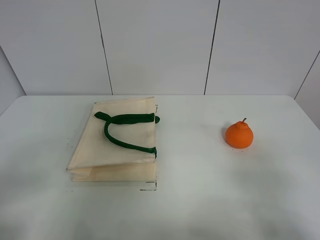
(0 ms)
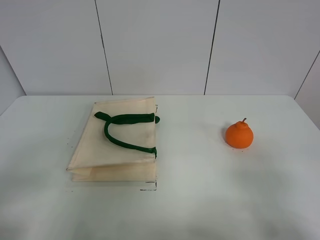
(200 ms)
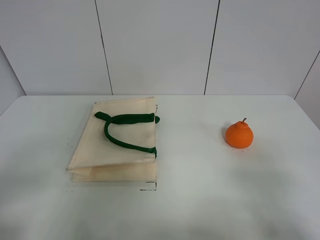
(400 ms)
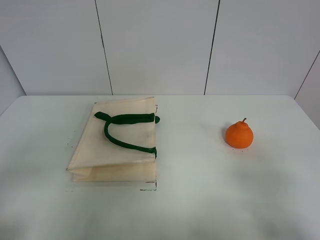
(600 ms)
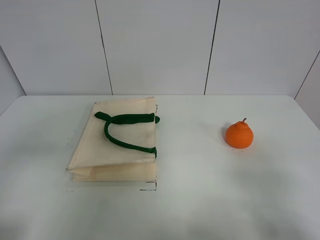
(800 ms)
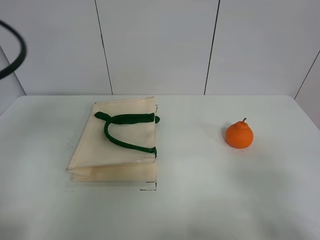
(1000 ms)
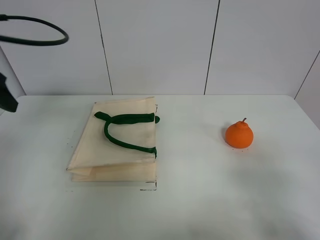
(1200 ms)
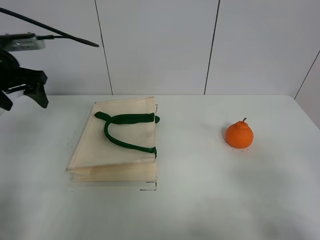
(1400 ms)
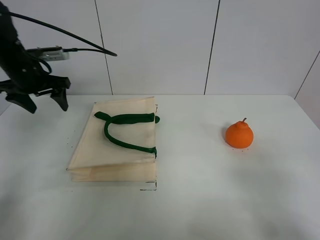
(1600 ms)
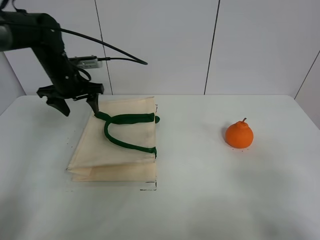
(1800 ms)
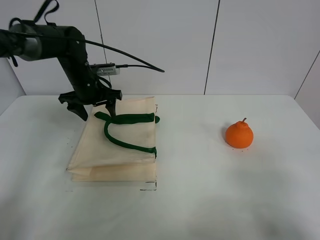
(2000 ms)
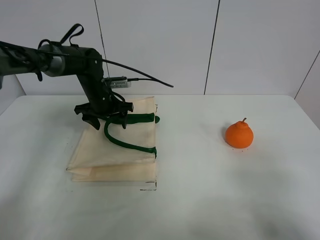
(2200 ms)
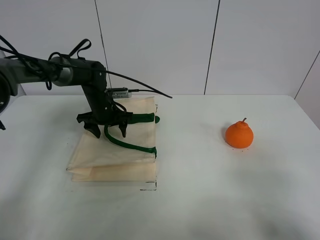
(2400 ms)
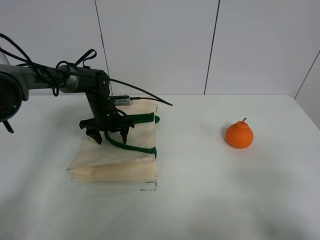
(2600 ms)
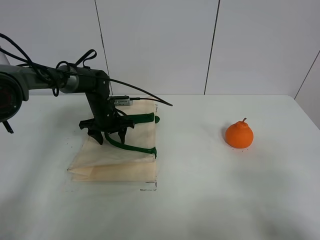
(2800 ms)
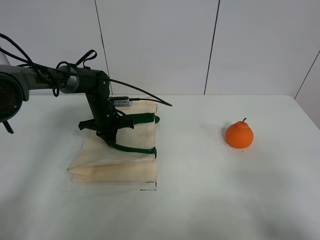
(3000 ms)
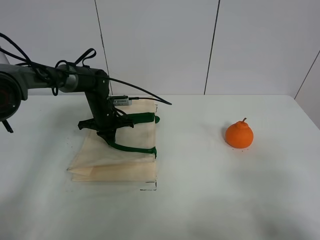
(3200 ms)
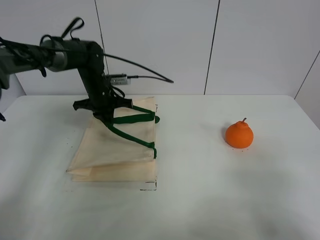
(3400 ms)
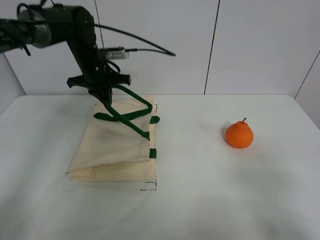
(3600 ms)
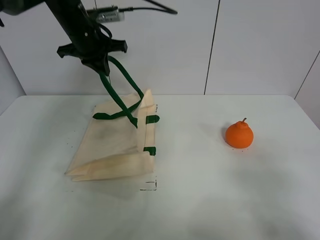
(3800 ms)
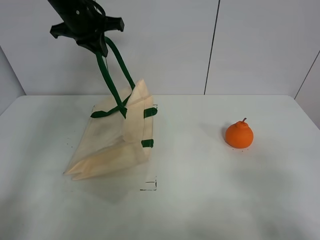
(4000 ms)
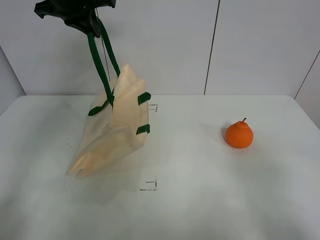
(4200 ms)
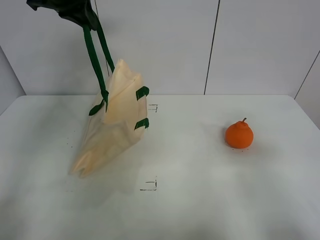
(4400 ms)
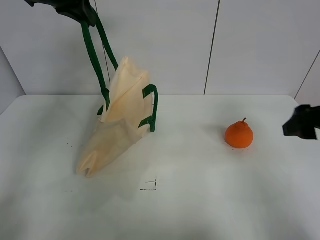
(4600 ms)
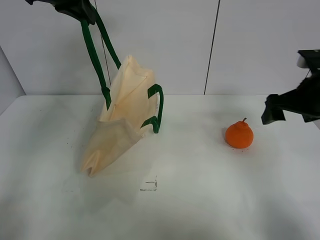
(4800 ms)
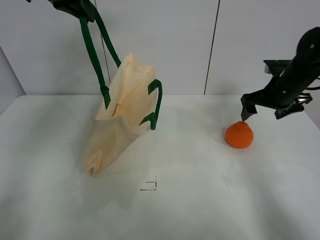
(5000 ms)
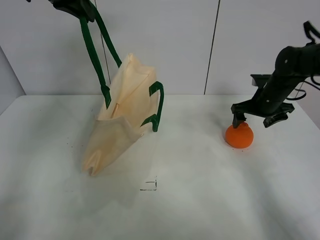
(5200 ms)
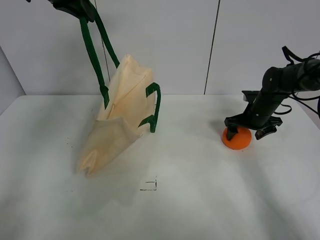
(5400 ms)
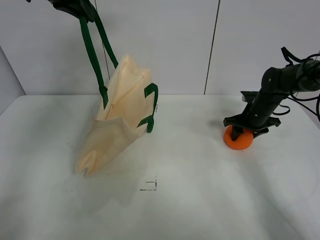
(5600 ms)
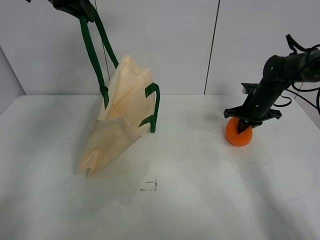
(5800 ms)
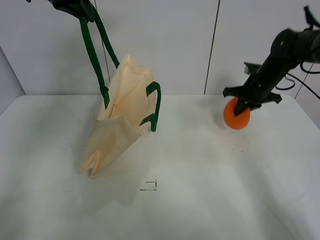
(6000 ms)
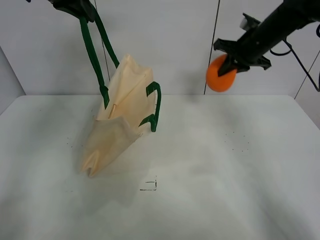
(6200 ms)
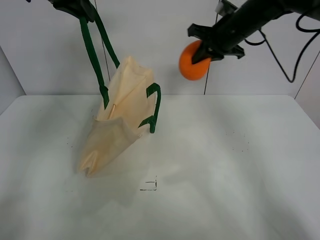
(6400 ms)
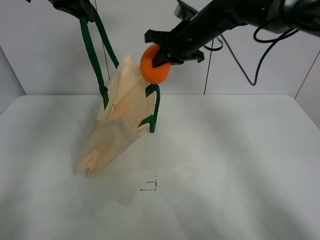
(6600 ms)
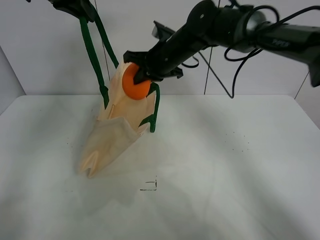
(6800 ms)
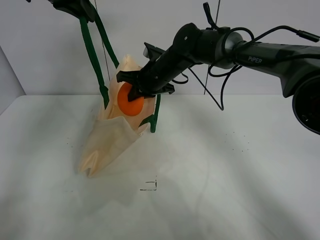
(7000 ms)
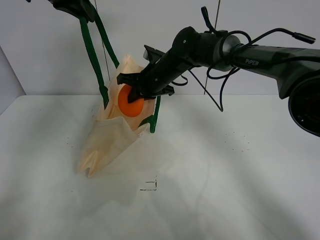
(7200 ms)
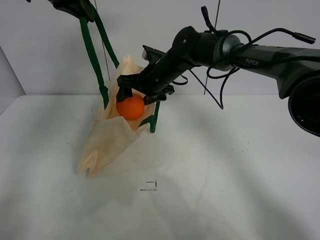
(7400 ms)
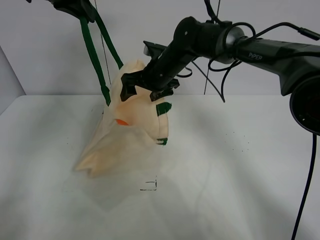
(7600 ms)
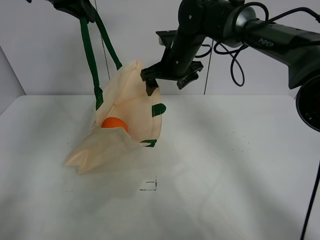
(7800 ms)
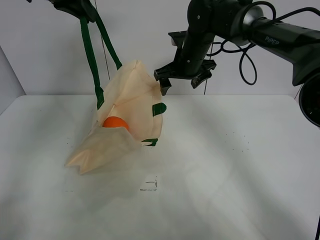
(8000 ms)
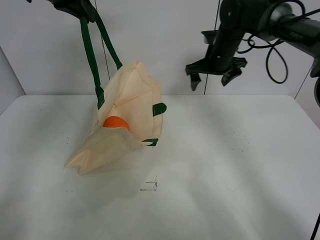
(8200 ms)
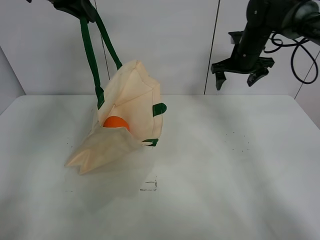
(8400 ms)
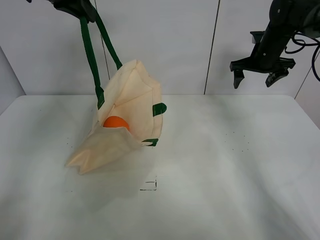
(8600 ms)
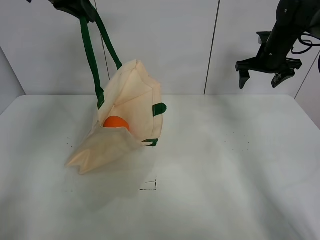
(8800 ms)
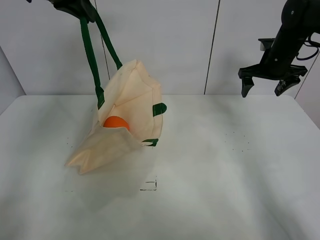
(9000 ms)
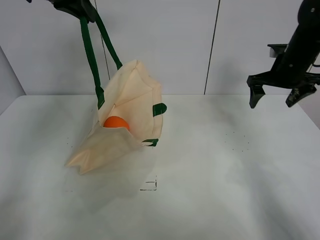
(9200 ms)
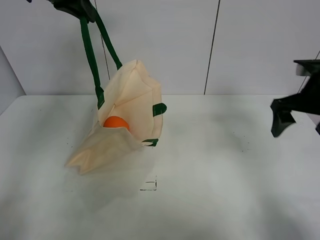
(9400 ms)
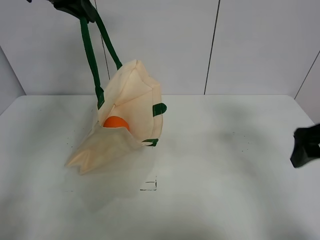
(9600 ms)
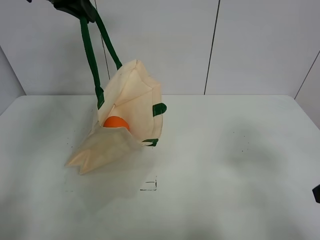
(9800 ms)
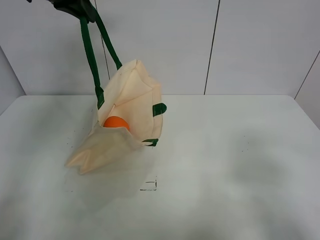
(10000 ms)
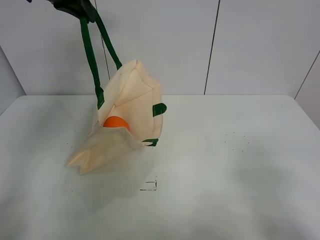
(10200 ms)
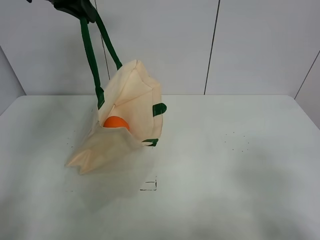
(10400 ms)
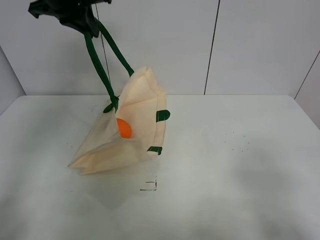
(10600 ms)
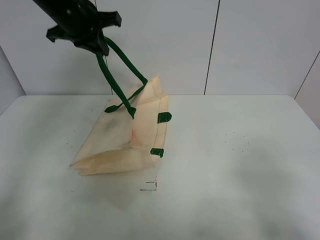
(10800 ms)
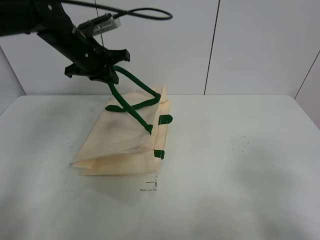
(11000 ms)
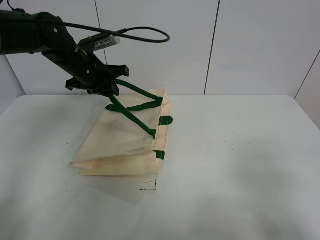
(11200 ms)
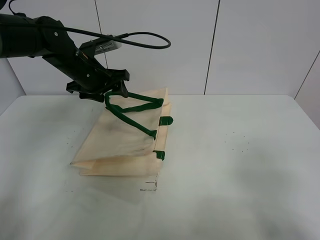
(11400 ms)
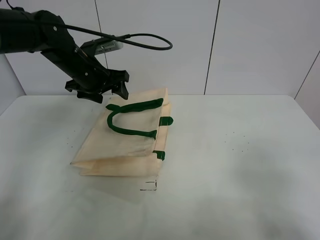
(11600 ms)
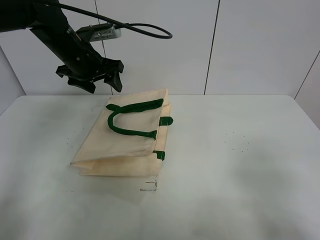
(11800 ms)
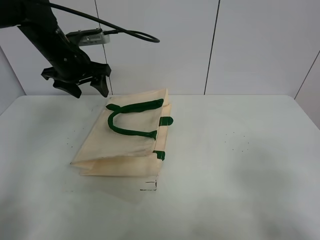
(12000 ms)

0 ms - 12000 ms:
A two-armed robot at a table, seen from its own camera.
Task of the whole recording: open the white linen bag and put the orange in the bag.
Step, 0 ms - 4000 ms: Lift the handbag with left gripper.
Step, 4200 ms - 5600 ms: Grasp the orange with right gripper.
Step, 5800 ms - 7600 ms: Place the orange in the handbag with right gripper.
Step, 7800 ms - 11600 ms: Put down the handbag with left gripper.
0 ms - 1600 ms: The left gripper is displaced forward by about 40 cm.
1600 ms - 3000 ms: The left gripper goes roughly 20 cm downward and to the right, and closes.
3000 ms - 4400 ms: The right gripper moves forward, approximately 10 cm; the left gripper heads upward, covering about 35 cm.
4400 ms - 6000 ms: The right gripper goes about 35 cm forward, and closes its fingers.
6000 ms - 7600 ms: The right gripper is displaced to the left by approximately 25 cm, and opens up.
7600 ms - 9000 ms: The right gripper shifts approximately 25 cm to the right.
9000 ms - 10400 ms: The right gripper travels backward by approximately 40 cm.
10400 ms - 12000 ms: The left gripper goes approximately 15 cm downward, and opens its fingers.

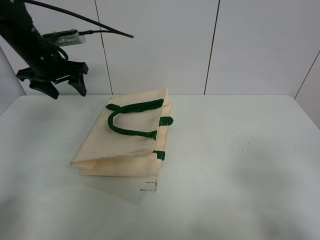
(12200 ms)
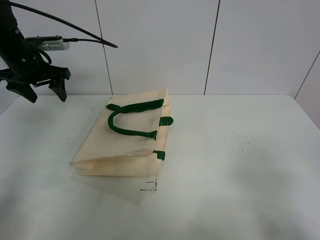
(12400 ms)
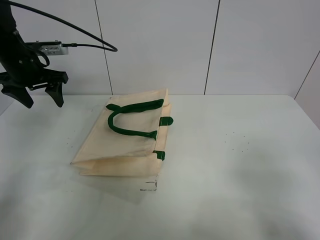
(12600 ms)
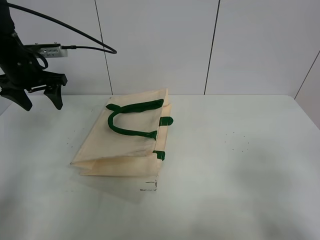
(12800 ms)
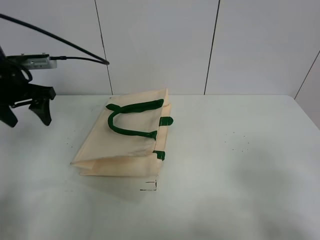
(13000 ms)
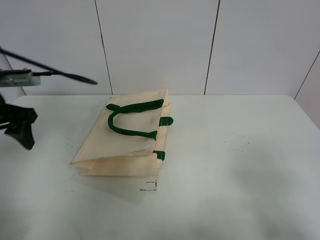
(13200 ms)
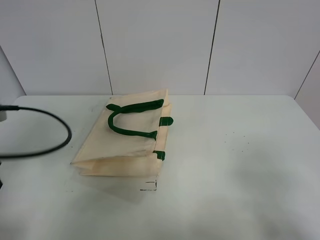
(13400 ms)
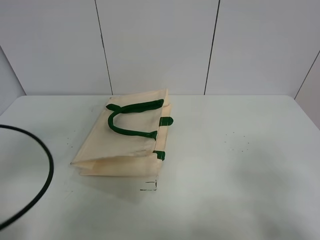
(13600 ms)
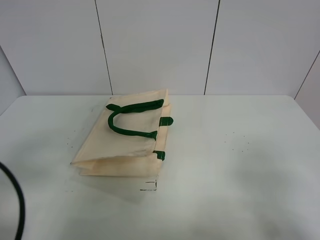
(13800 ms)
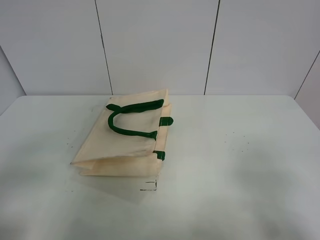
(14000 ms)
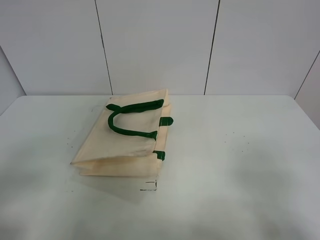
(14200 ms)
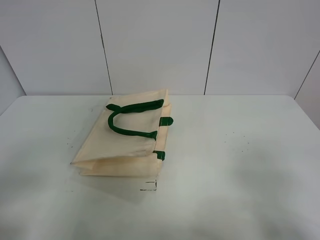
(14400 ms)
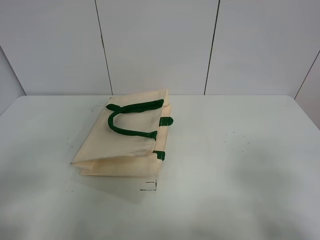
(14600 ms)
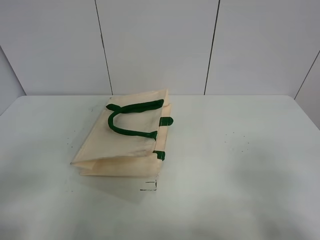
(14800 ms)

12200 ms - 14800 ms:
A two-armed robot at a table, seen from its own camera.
Task of the whole recording: open the white linen bag and put the orange in the bag.
12200 ms - 13400 ms: The left gripper shifts approximately 25 cm backward.
13400 ms - 14800 ms: The left gripper shifts some 15 cm backward.

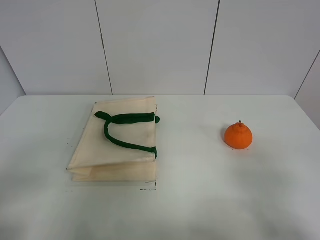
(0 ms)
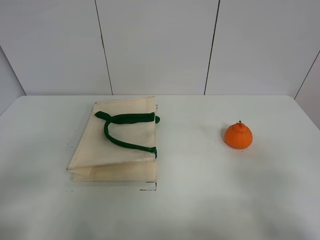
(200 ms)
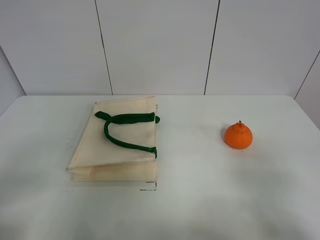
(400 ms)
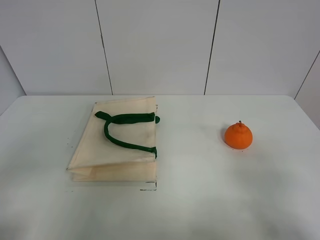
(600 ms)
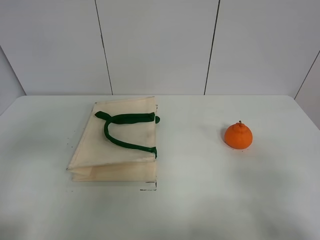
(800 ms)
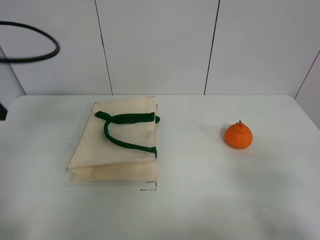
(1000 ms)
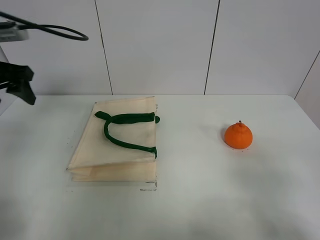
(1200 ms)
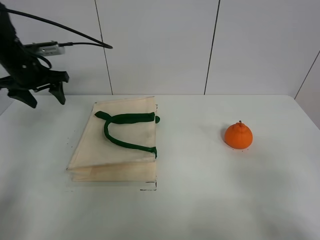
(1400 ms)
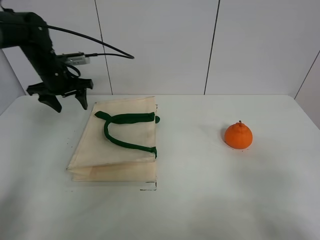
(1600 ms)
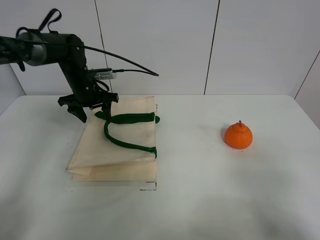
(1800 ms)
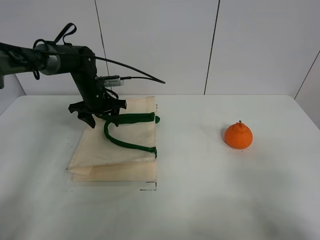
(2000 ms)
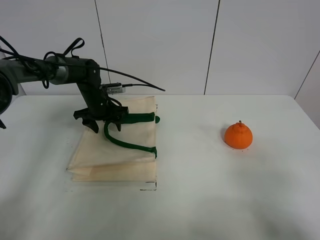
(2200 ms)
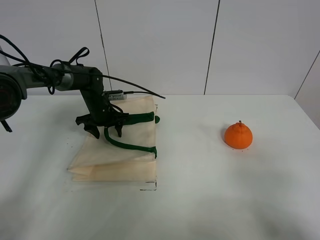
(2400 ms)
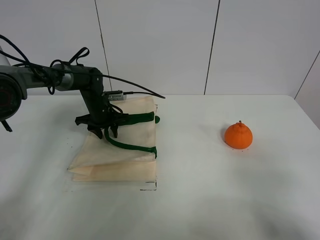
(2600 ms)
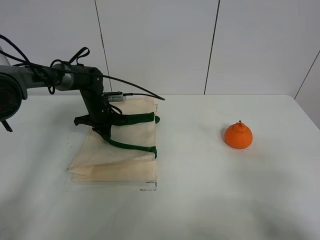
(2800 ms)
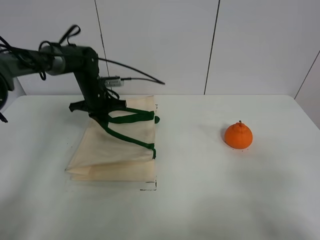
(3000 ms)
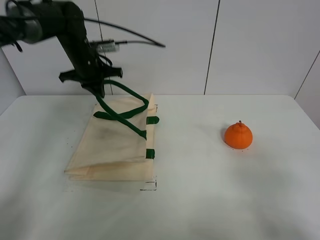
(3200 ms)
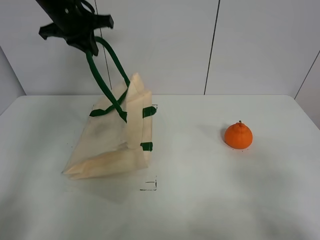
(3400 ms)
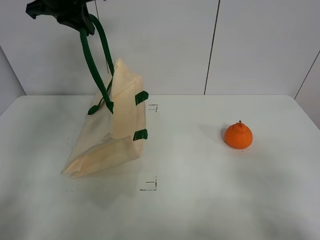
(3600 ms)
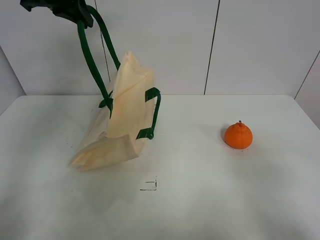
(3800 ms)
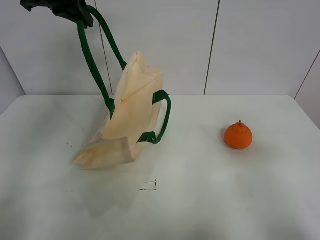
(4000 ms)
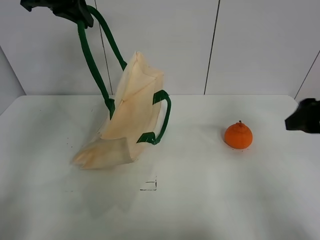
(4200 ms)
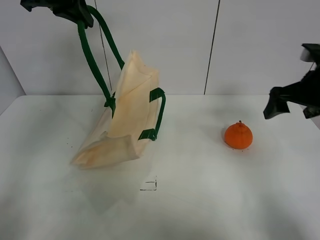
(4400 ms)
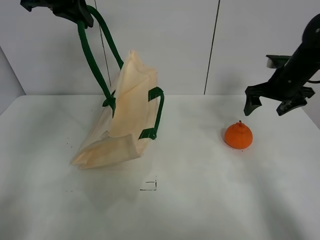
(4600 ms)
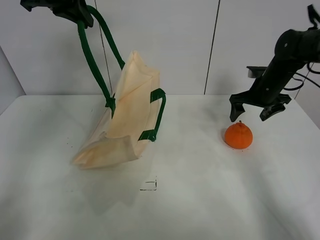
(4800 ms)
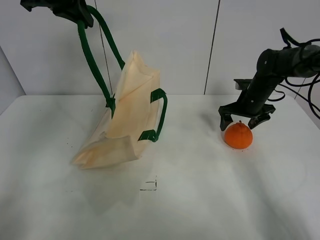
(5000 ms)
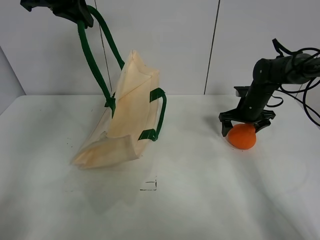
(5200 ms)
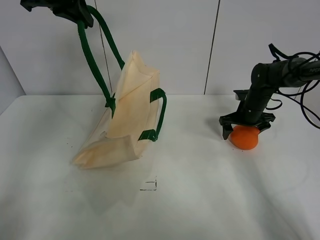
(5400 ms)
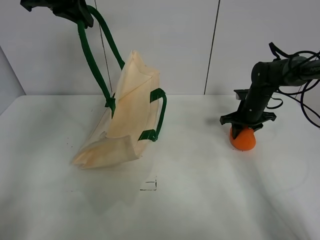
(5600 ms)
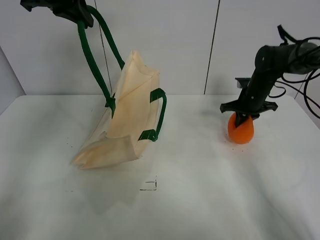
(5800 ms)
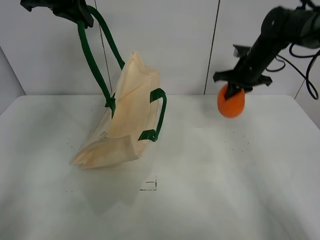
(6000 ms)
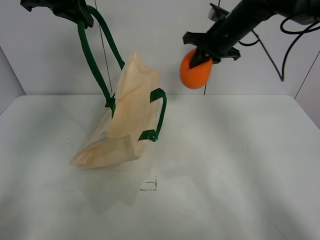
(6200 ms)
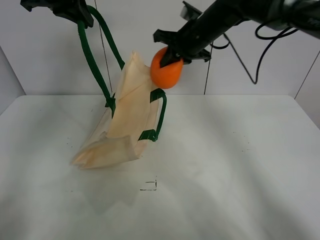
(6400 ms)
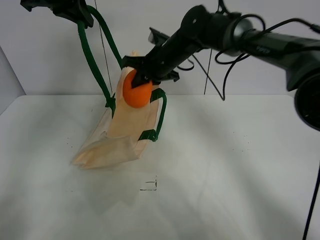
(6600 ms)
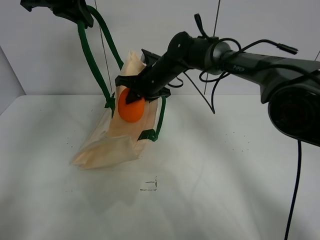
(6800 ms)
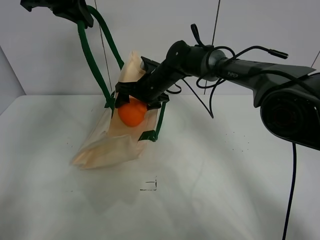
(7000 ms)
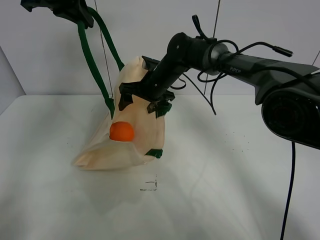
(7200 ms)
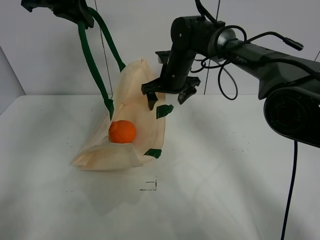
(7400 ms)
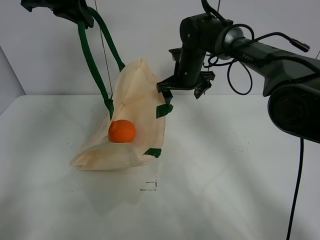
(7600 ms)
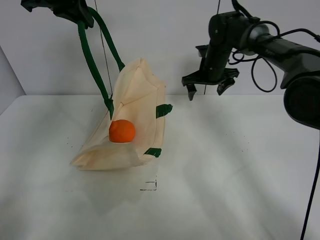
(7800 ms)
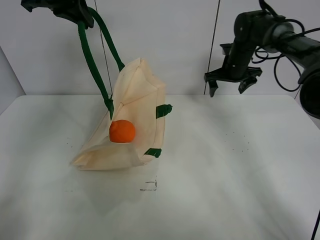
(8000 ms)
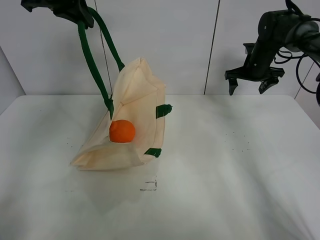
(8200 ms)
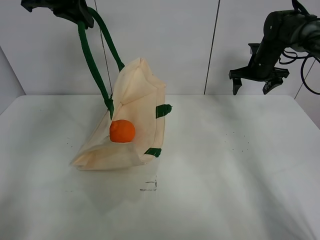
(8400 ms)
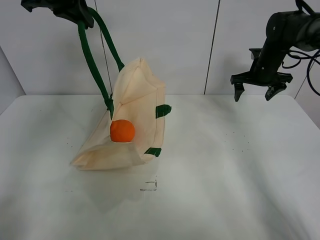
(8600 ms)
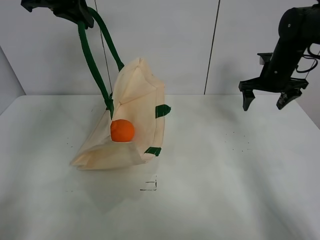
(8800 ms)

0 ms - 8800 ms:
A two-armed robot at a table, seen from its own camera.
Task of the whole recording: open the white linen bag and put the orange in the bag.
Step, 0 ms - 3600 ms: Lift the handbag with left gripper.
Step, 3800 ms - 5600 ms: Grasp the orange with right gripper.
Step, 5800 ms - 8000 ms: Place the orange in the handbag with right gripper.
0 ms - 1400 ms: The left gripper goes approximately 40 cm forward.
1400 ms - 3000 ms: The left gripper is displaced to the right, downward and forward by approximately 15 cm, and closes.
3000 ms - 4400 ms: The left gripper moves upward, approximately 25 cm. The right gripper goes about 30 cm forward.
4400 ms - 5800 ms: The right gripper moves forward and downward, some 15 cm, and closes up.
5800 ms - 7400 ms: The right gripper heads to the left, covering approximately 20 cm, and opens its fingers.
7400 ms - 8800 ms: The right gripper heads to the right, covering roughly 25 cm.
